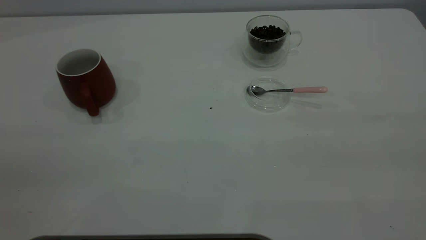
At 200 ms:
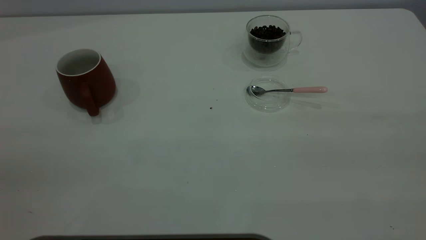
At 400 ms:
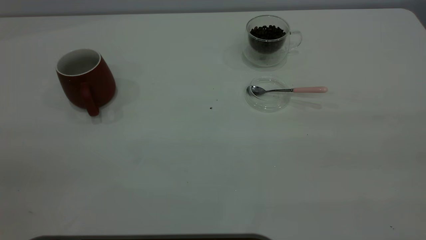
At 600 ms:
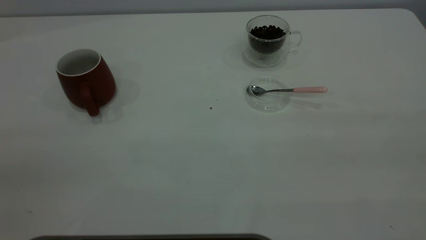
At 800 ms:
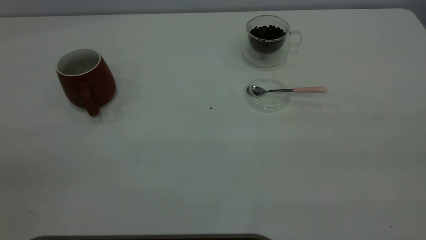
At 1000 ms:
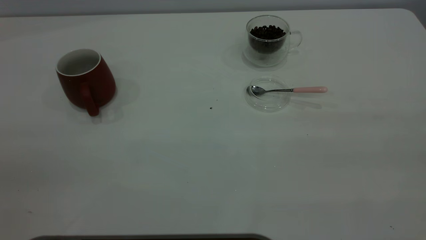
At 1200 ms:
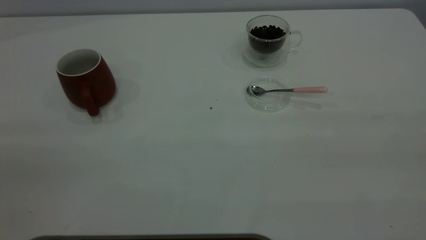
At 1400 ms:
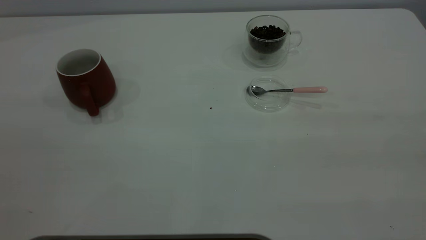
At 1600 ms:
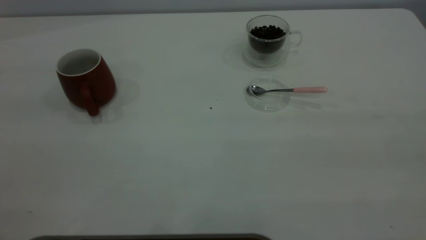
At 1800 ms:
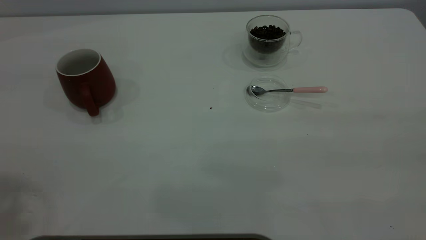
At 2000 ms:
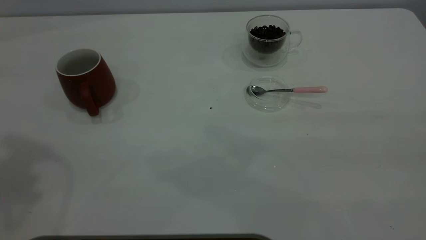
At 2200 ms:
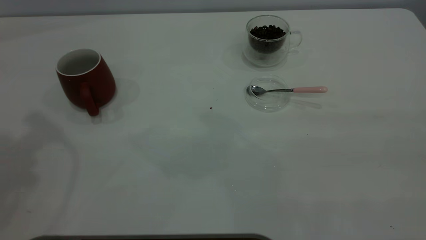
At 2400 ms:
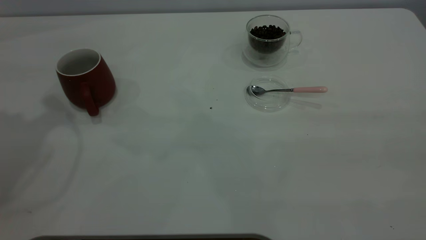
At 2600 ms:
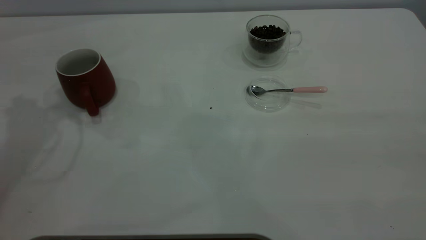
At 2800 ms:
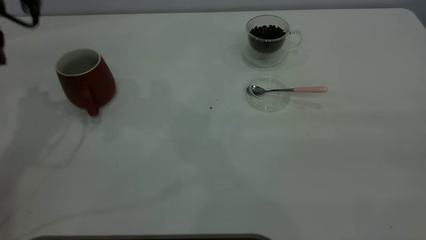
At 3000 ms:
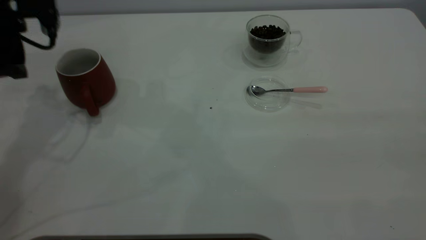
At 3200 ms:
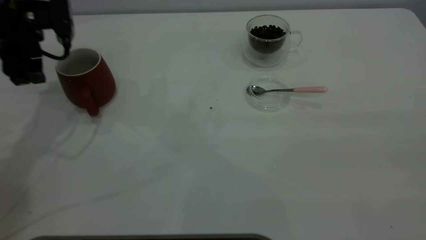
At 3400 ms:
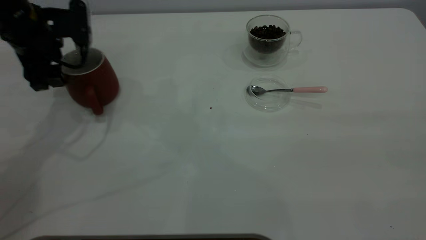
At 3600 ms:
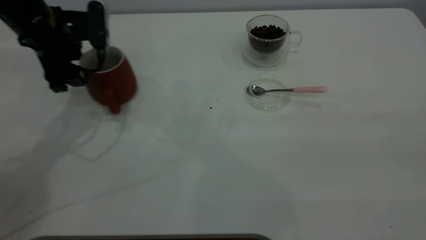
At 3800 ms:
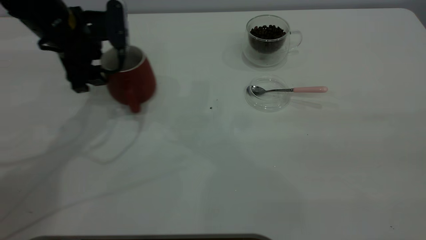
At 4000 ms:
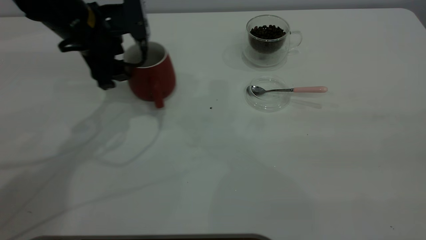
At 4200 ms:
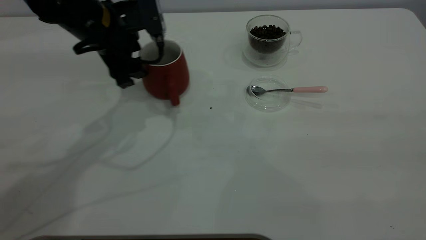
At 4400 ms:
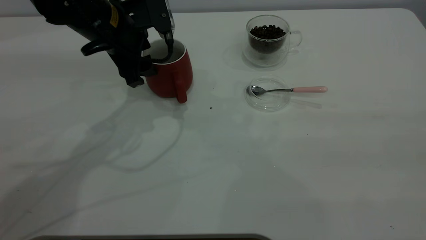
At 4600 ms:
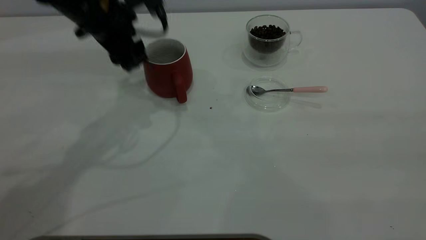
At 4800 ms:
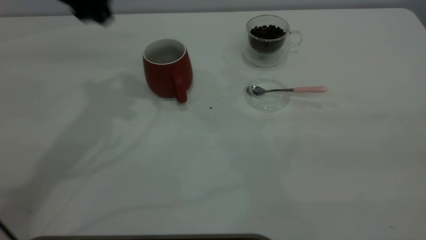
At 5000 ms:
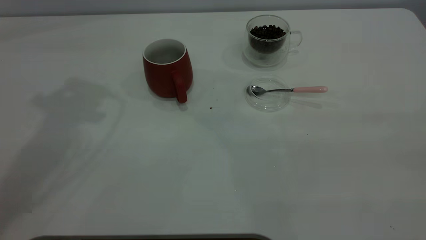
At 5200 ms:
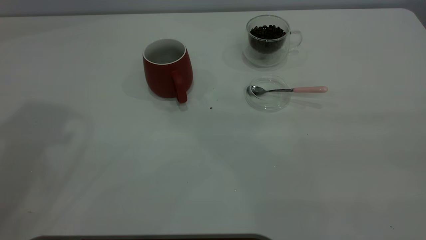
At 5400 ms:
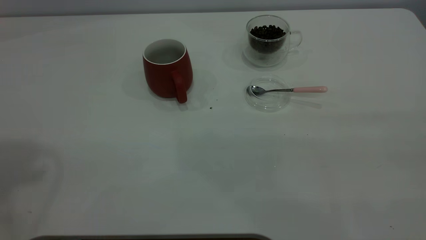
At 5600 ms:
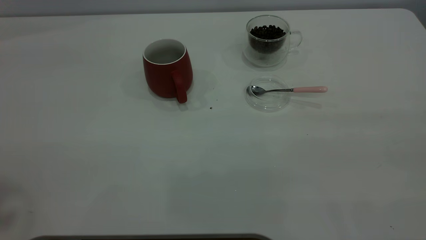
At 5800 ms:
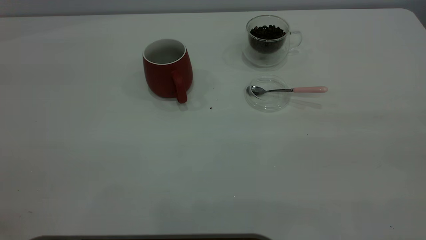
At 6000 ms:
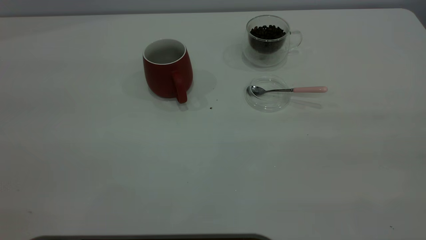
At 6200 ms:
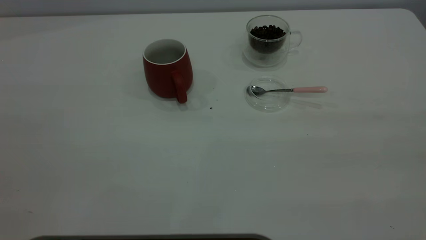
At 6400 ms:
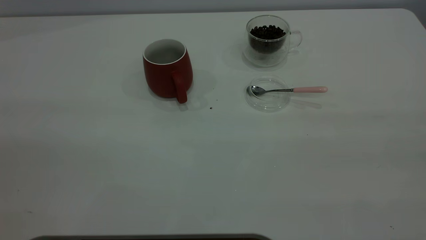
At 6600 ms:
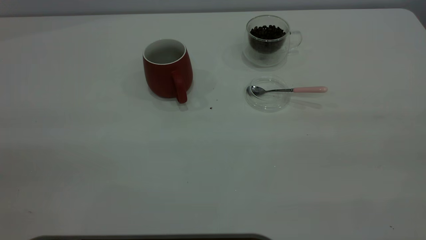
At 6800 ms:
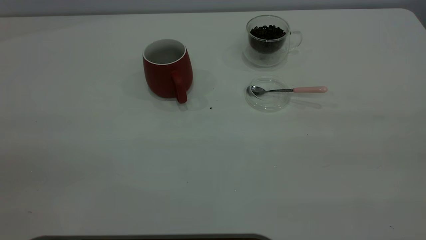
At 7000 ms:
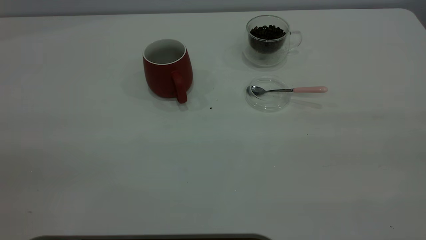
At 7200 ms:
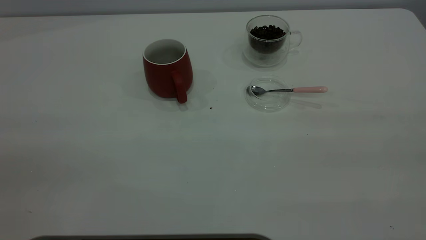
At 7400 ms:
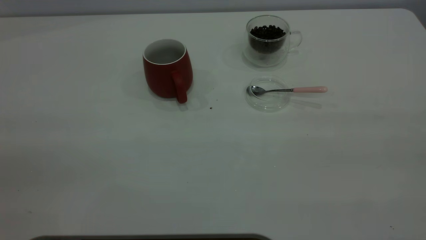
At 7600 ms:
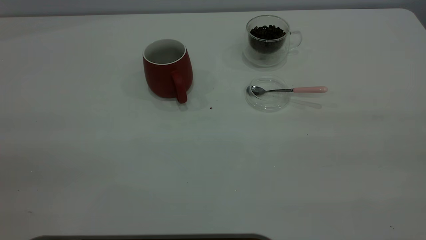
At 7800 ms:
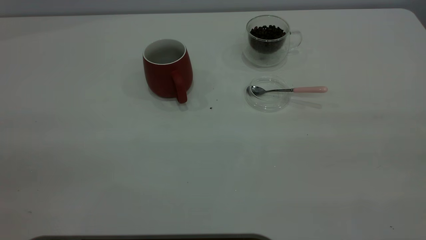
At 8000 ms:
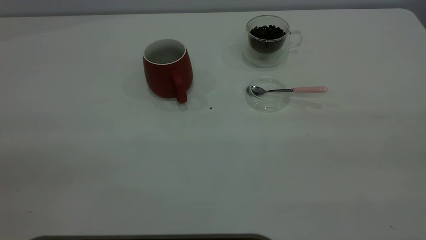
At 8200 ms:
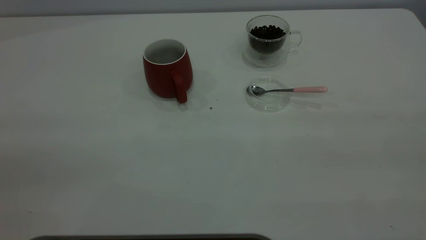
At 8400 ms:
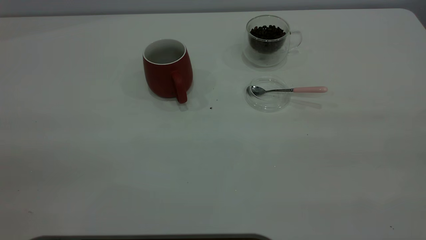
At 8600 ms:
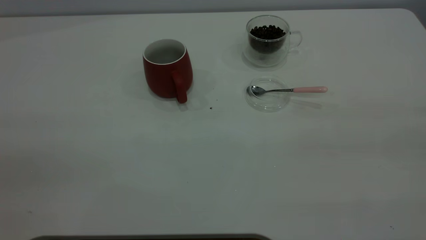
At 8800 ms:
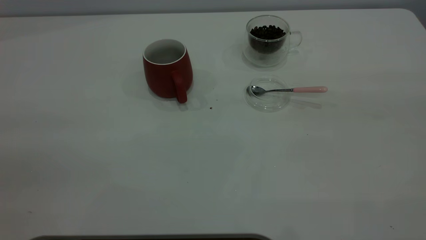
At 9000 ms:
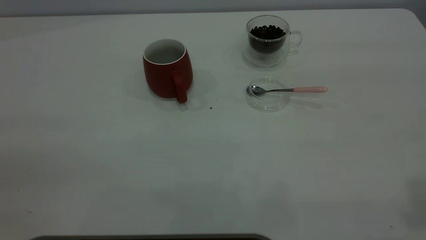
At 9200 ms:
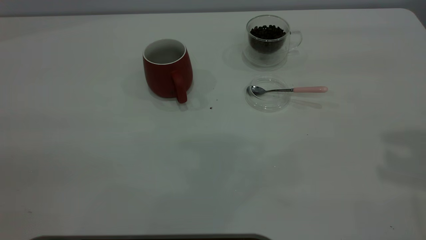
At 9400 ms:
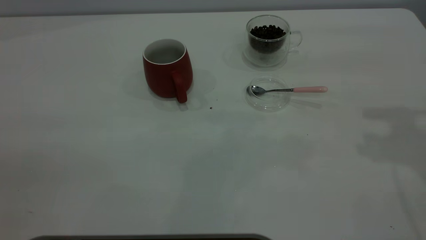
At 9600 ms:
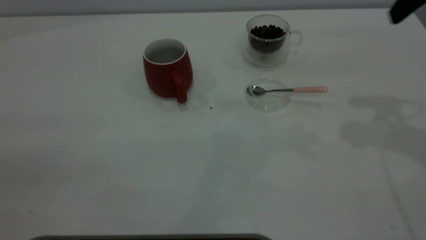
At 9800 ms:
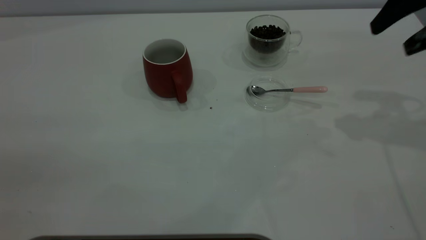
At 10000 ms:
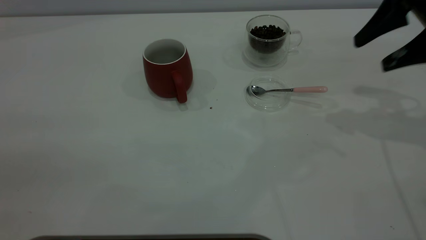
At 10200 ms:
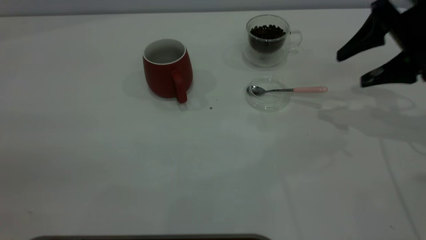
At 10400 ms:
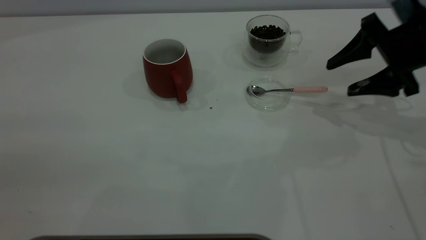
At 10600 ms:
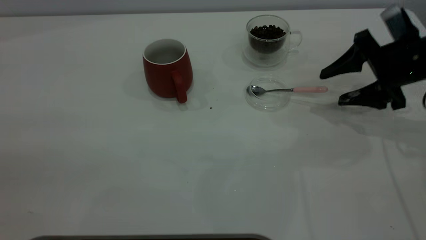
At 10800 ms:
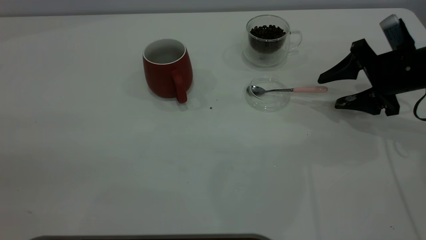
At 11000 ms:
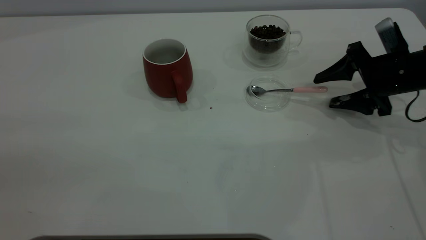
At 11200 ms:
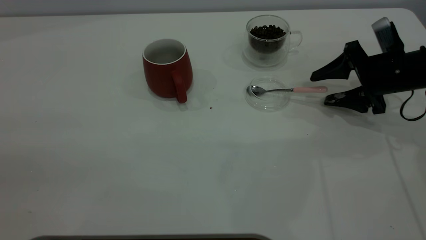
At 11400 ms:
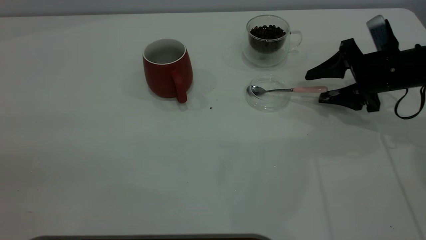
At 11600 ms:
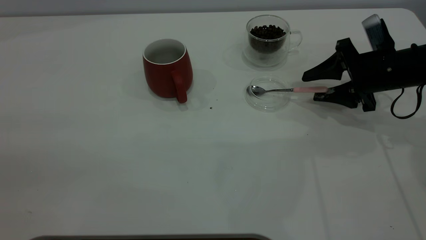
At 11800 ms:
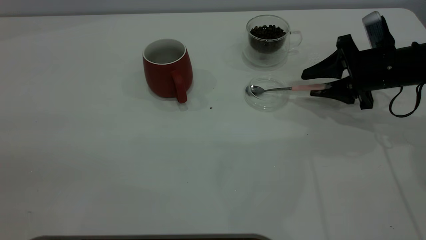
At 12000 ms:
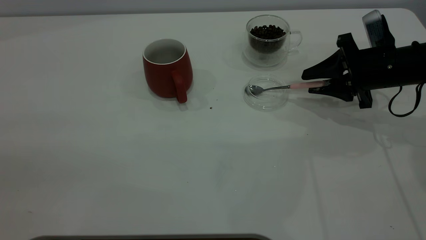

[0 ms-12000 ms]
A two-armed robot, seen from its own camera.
Task of the whole recording: the left gripper place the red cup in the center of the table, the right gripper take the pink spoon from the cup lid and scoop out the coffee beans from the coffee cup and put them into the red cup, the right gripper put the spoon back into the cup lid.
Step, 0 ms to 4600 ms: Move the cup to the center of view.
1600 ms to 3000 ms: The left gripper shifts about 40 cm forward and downward.
3000 ms to 4400 ms: The left gripper heads to the right, covering some 15 cm.
4400 ms to 6000 ms: The left gripper moves backward, upward and to the left, about 50 cm.
9000 ms to 10400 ms: The right gripper moves downward and forward, approximately 35 cm.
10400 ms to 12000 ms: The right gripper goes roughly 5 cm downward, and closes.

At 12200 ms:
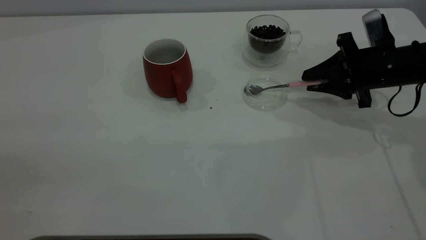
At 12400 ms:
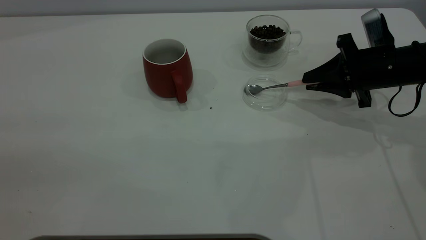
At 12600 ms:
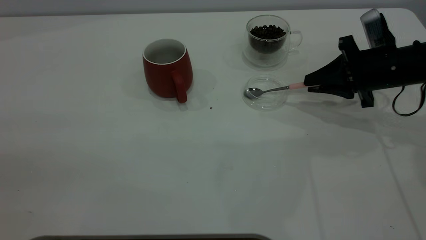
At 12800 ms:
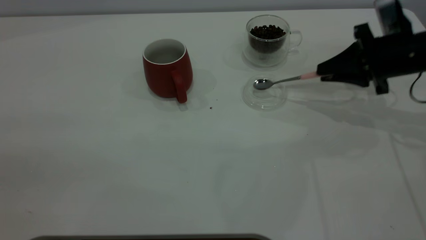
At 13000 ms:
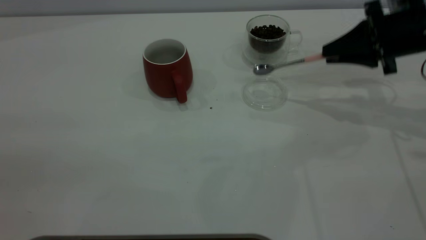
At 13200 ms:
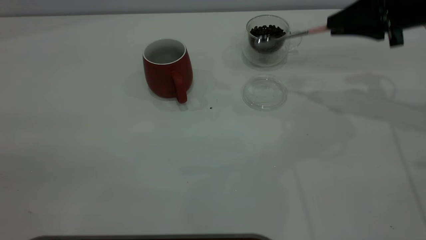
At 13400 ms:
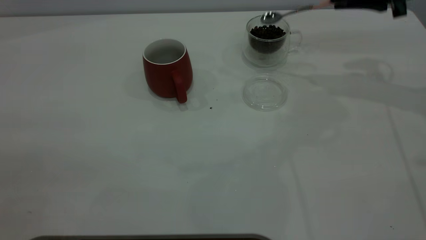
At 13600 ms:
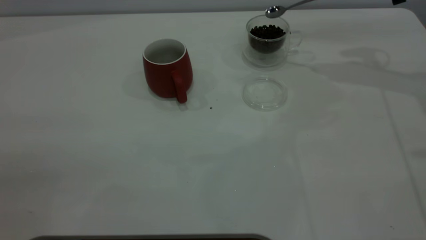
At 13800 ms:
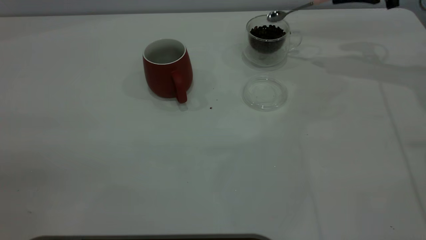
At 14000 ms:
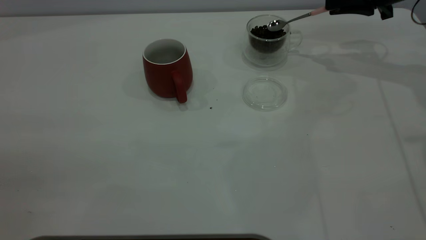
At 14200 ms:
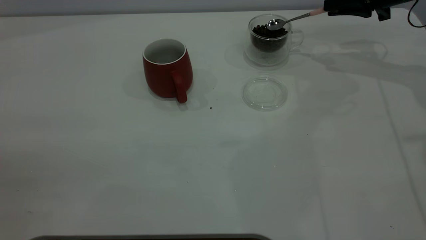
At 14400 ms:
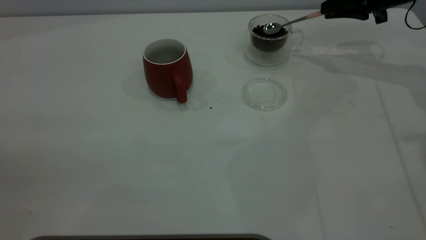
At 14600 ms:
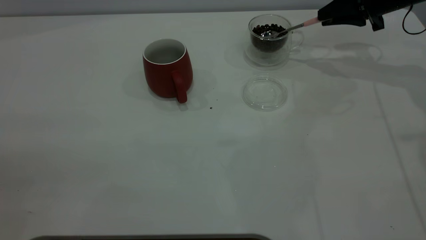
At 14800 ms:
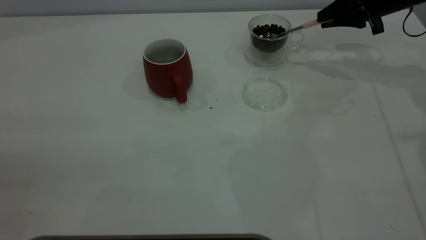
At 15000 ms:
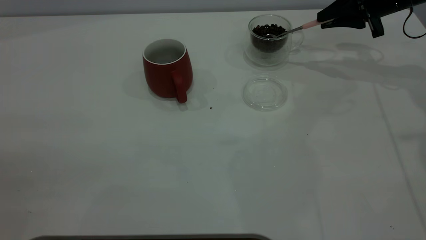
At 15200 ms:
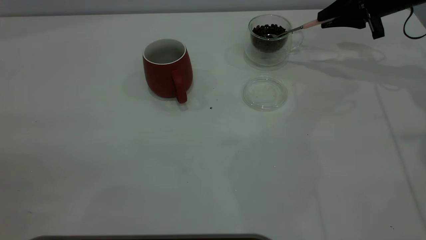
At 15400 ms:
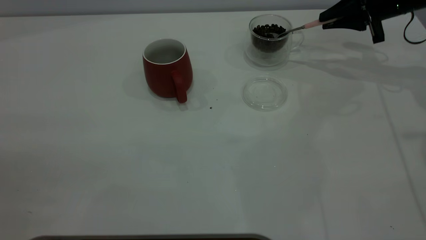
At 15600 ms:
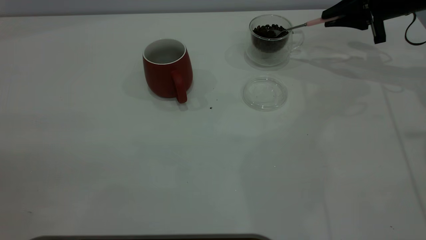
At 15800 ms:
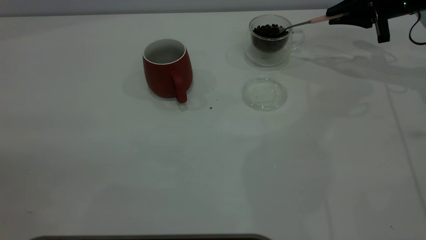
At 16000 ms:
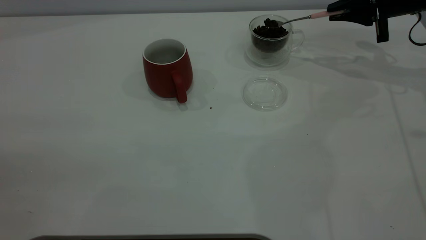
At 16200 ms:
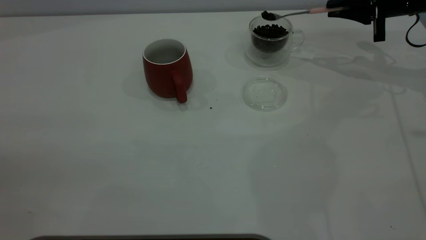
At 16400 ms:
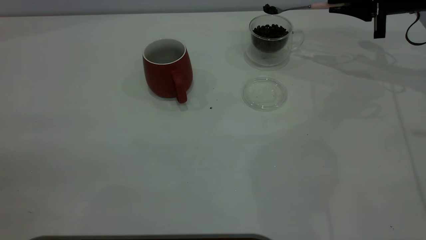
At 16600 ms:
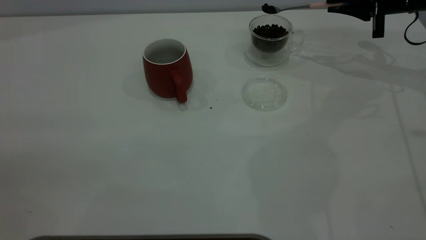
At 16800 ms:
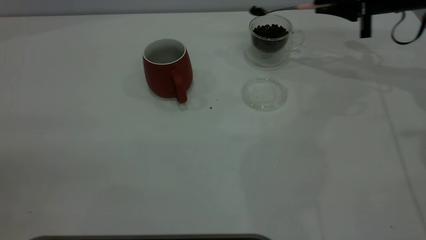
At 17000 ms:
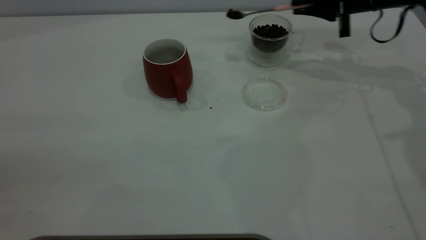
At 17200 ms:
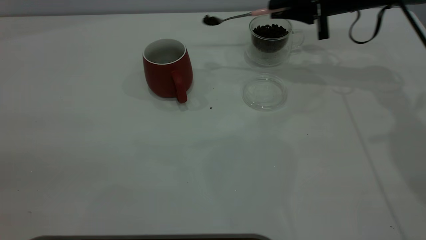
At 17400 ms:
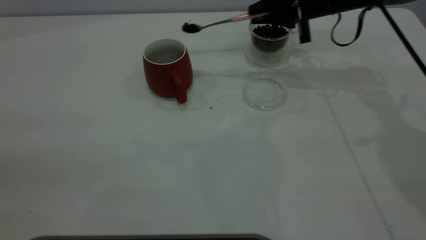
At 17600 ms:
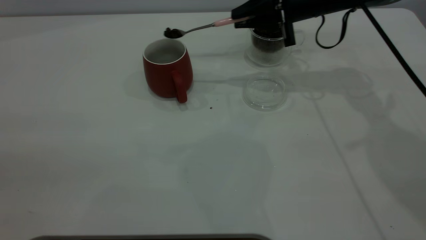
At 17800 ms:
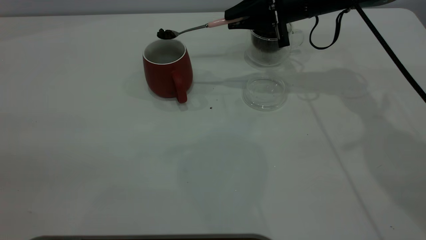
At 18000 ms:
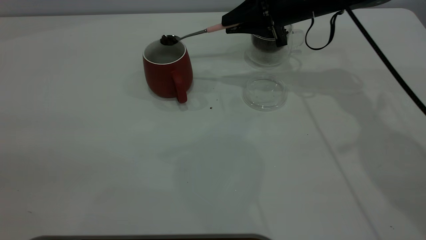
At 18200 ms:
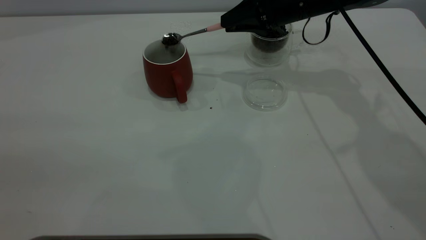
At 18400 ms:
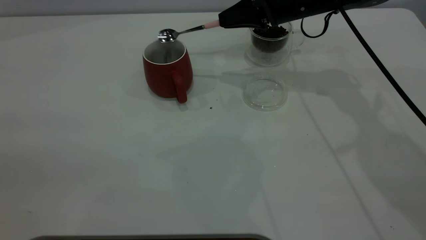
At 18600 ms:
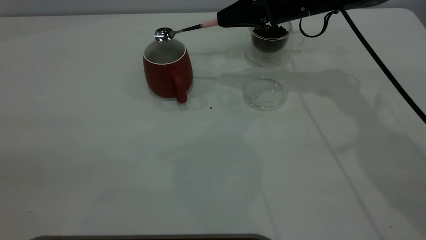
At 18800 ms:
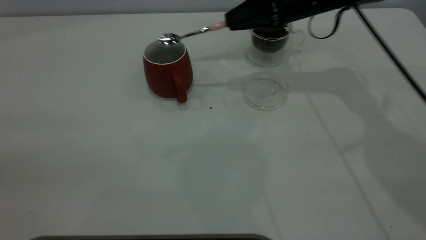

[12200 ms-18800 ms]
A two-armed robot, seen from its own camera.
Task of the whole recording: the left gripper place the red cup in the center of the table, the right gripper take the pink spoon from the cup lid and scoop out the coffee beans from the coffee cup and put them into the red cup, the right gripper put the spoon back into the cup lid.
12200 ms to 13800 ms: The right gripper shifts about 15 cm forward and upward.
15400 ms to 17200 ms: The right gripper moves to the left, approximately 10 cm.
17200 ms to 18800 ms: The right gripper goes about 5 cm to the left.
